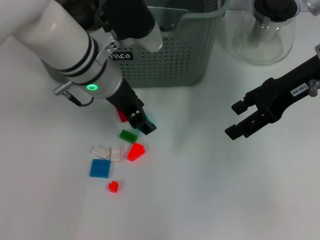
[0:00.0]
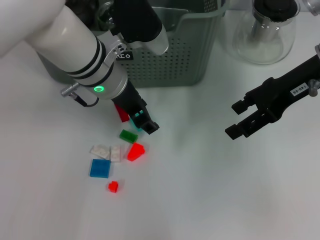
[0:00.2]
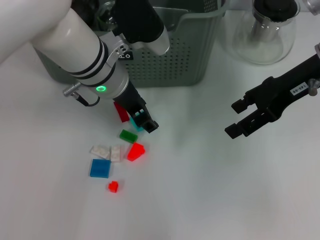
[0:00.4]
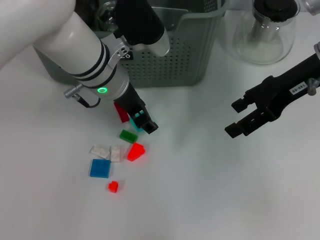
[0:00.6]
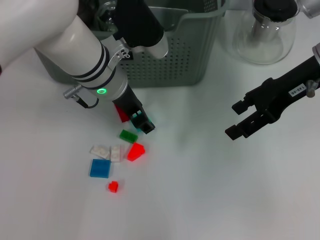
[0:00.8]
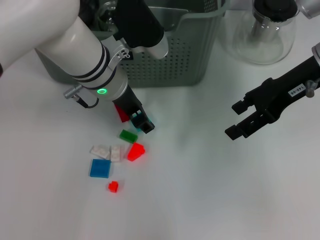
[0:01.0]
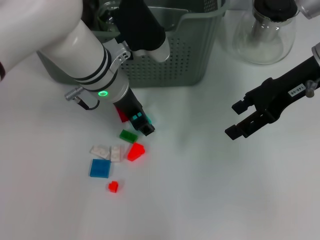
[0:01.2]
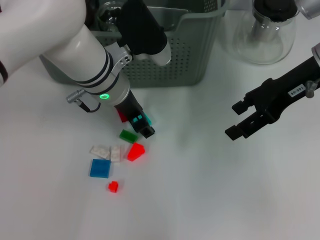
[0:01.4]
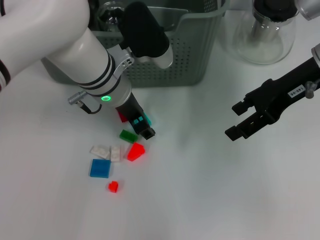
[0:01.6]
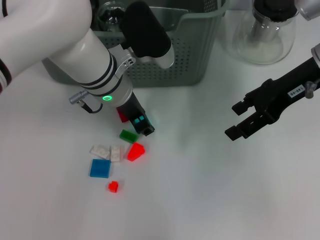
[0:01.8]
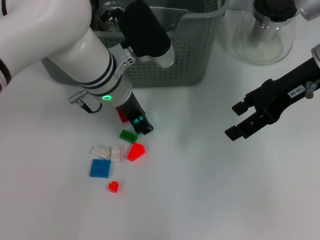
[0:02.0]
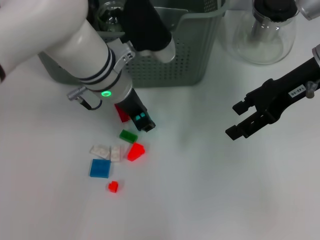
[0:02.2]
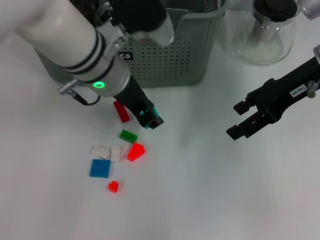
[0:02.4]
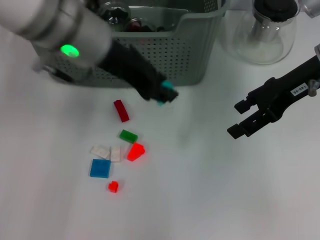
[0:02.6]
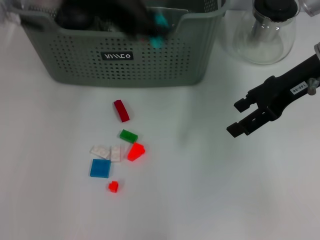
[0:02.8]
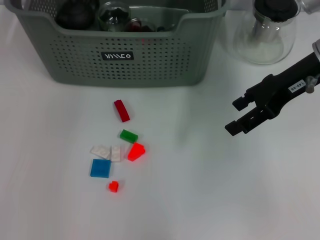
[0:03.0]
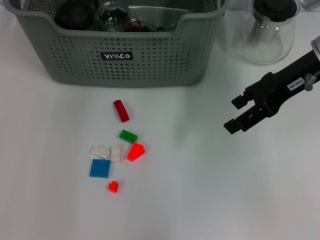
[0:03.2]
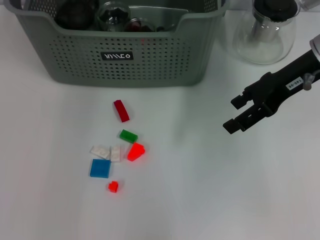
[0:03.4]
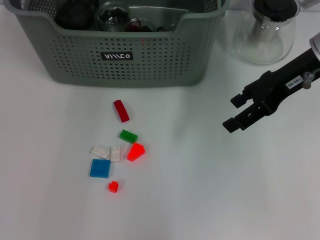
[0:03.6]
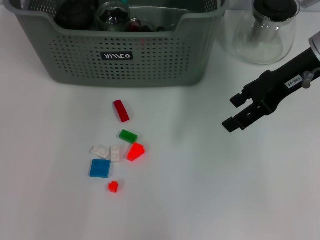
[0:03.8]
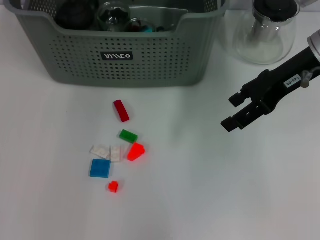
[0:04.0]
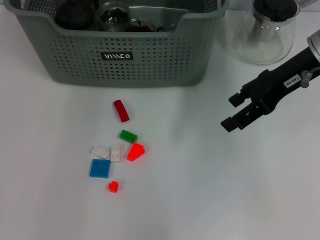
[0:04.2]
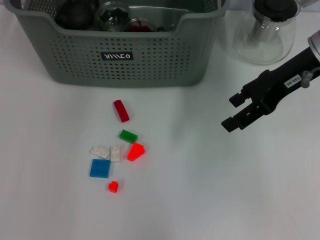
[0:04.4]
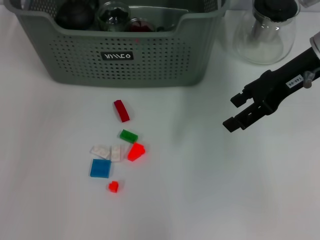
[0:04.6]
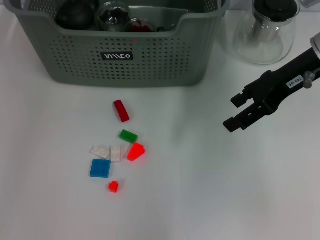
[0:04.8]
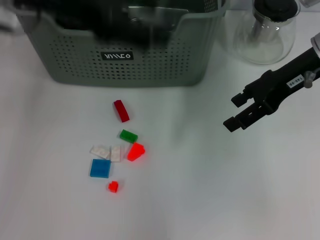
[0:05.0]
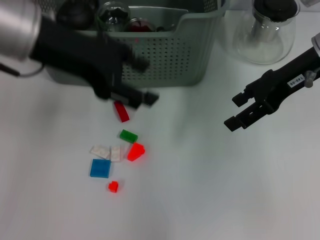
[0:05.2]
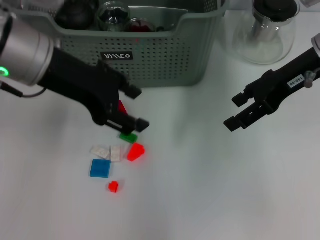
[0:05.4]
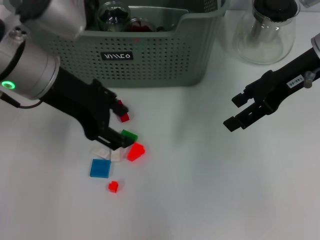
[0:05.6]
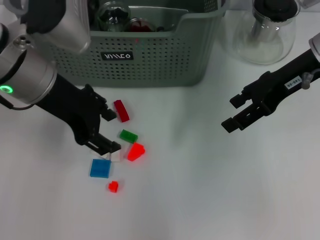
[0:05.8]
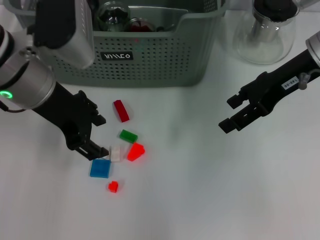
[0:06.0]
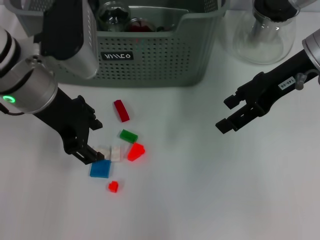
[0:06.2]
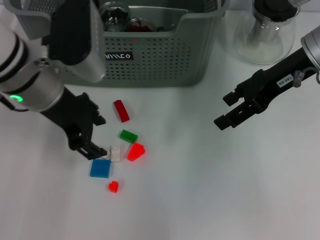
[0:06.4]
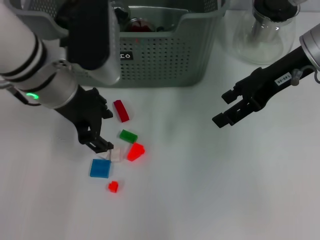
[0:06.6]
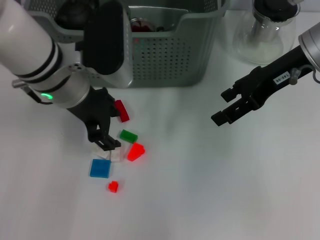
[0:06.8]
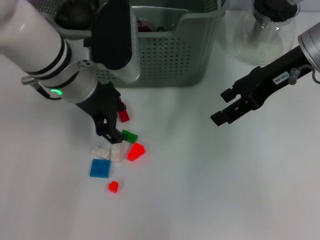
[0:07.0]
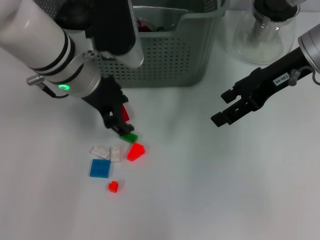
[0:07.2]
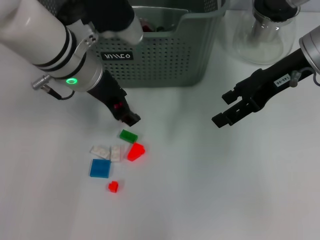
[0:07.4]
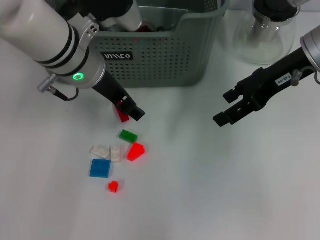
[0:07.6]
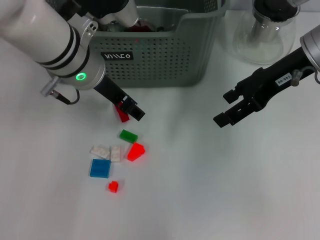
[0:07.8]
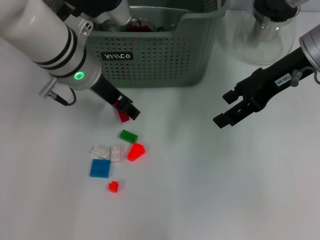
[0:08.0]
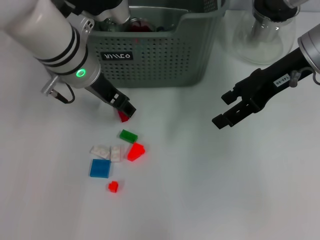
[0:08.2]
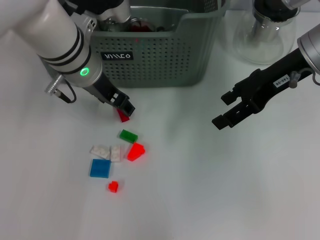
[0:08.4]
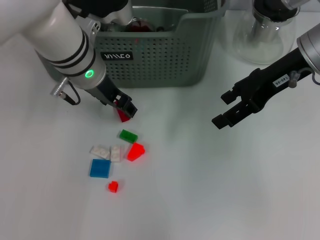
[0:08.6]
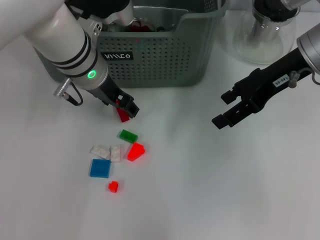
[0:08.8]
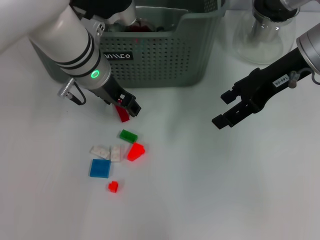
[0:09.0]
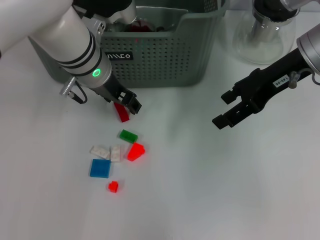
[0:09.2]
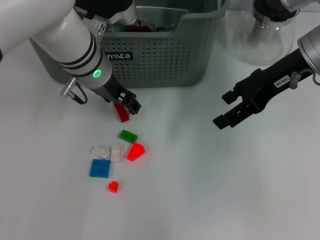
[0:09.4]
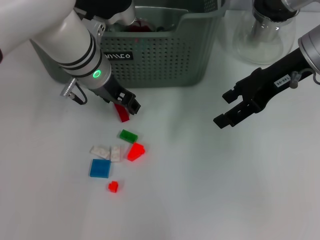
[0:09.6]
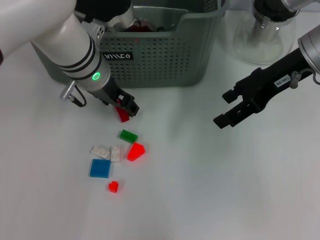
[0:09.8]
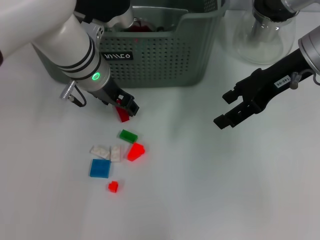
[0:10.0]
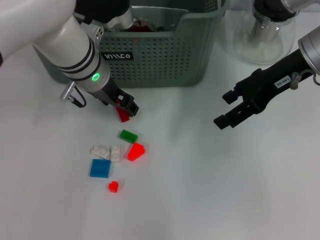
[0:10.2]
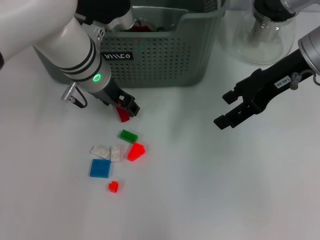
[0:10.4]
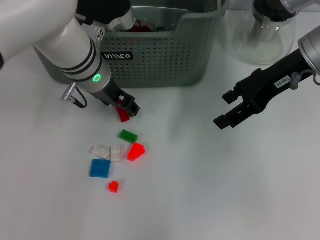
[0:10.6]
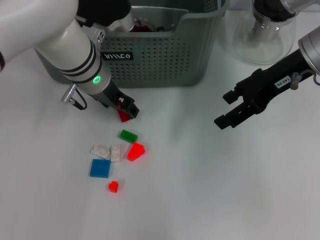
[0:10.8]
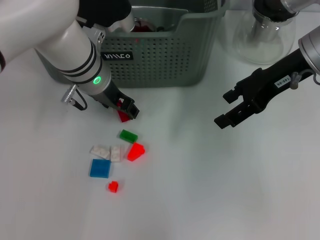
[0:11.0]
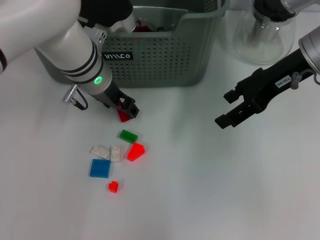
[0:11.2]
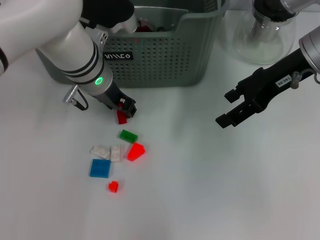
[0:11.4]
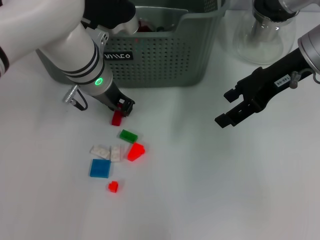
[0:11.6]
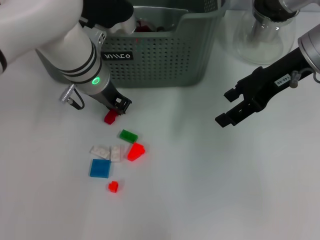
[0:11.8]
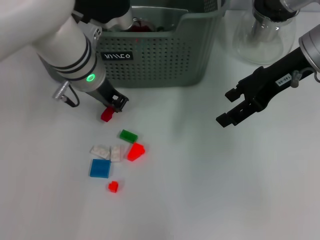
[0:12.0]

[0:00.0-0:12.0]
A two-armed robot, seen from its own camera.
Task of the whole recording: pick up the teacup on the table and place it into the storage bin, pick up the block on the table and place it into the storage bin.
Step, 0:00.0 to 0:02.0: Grasp the light blue block with left gripper.
Step, 0:02.2 to 0:04.0: Place the light blue block in the storage box with left gripper.
Step, 0:04.2 to 0:11.6: Grasp the red block with left gripper.
0:00.0 to 0:01.6: The grippers make only small movements.
0:01.6 to 0:03.0: The left gripper is displaced upward and to the left by roughly 20 cm.
0:04.4 to 0:06.0: The left gripper moves backward and downward, roughly 15 cm.
0:06.0 to 0:07.6: The left gripper is displaced to the right by about 5 cm.
0:09.0 to 0:10.4: Neither gripper changes place.
0:10.4 to 0:12.0: The left gripper closes its fingers.

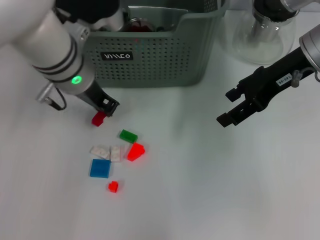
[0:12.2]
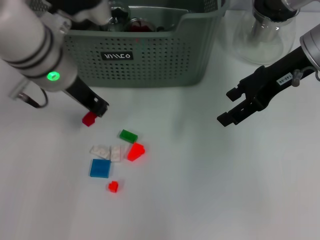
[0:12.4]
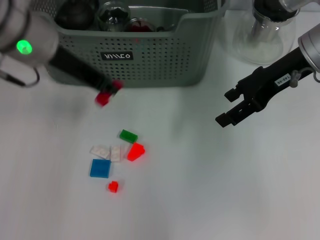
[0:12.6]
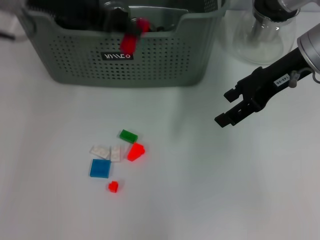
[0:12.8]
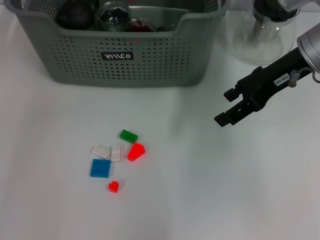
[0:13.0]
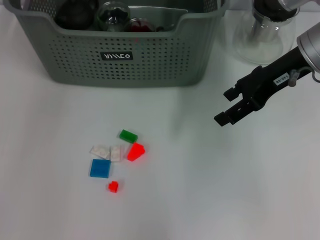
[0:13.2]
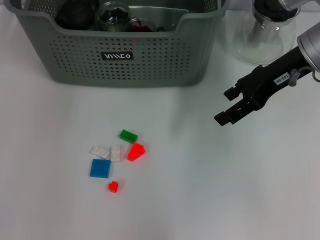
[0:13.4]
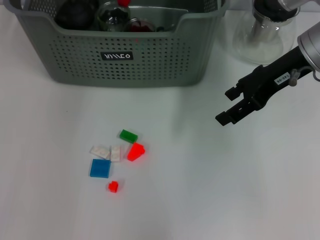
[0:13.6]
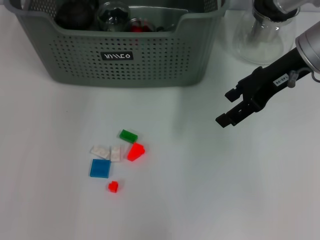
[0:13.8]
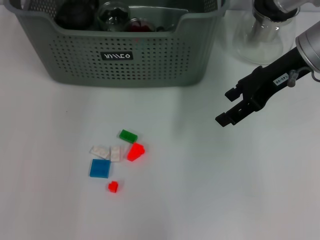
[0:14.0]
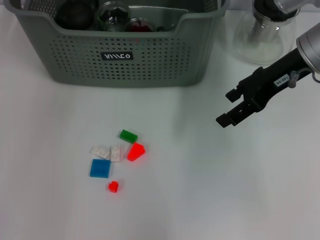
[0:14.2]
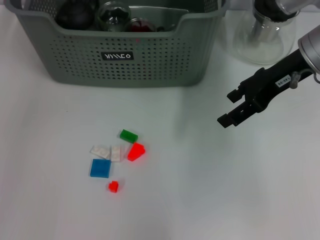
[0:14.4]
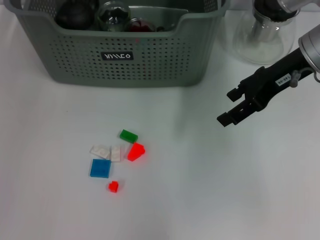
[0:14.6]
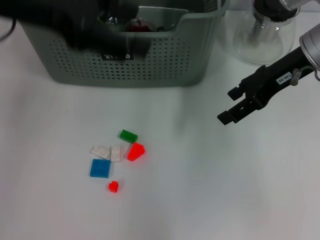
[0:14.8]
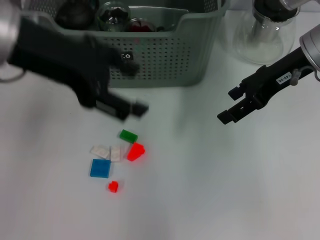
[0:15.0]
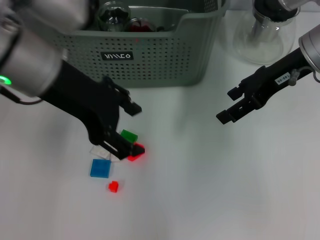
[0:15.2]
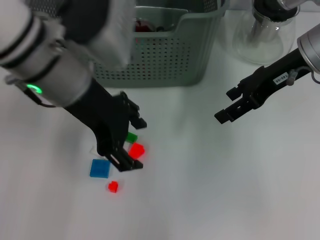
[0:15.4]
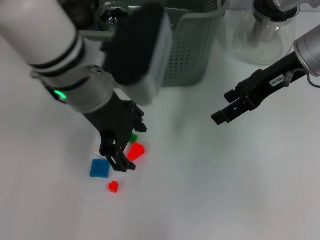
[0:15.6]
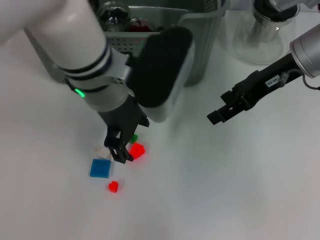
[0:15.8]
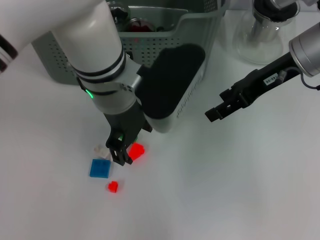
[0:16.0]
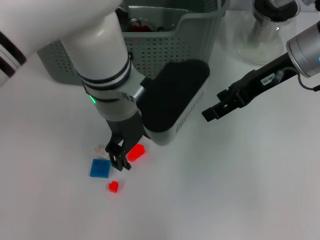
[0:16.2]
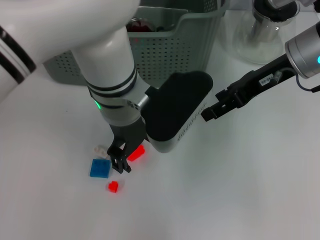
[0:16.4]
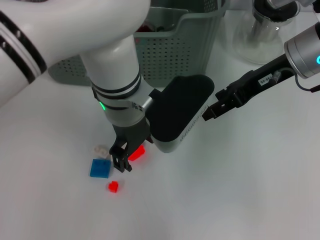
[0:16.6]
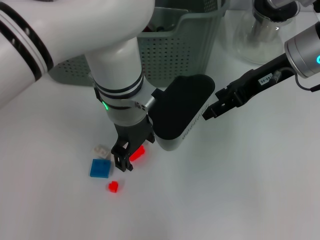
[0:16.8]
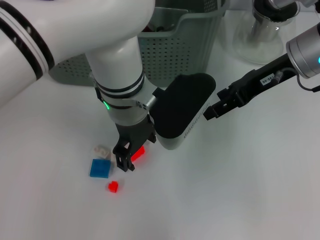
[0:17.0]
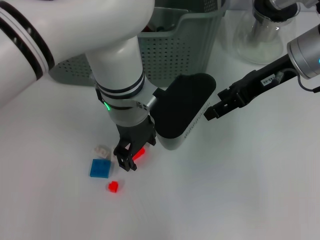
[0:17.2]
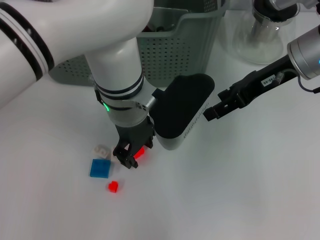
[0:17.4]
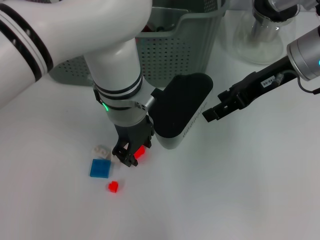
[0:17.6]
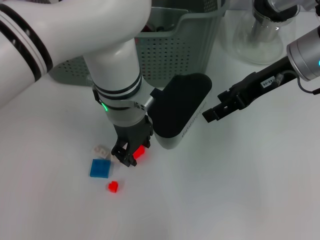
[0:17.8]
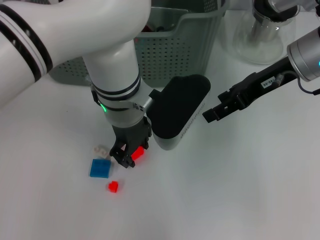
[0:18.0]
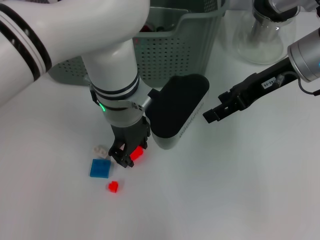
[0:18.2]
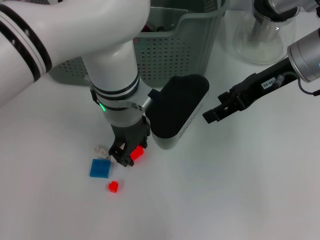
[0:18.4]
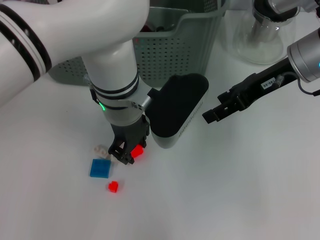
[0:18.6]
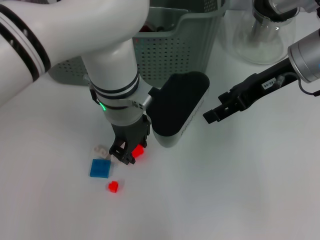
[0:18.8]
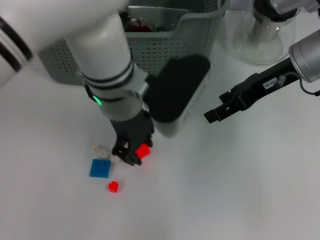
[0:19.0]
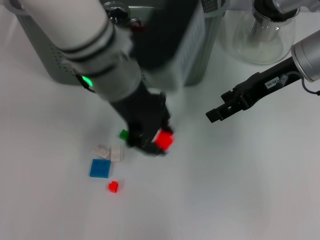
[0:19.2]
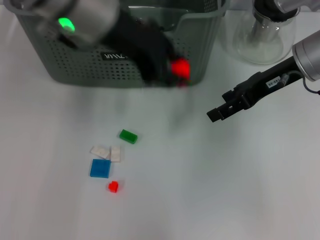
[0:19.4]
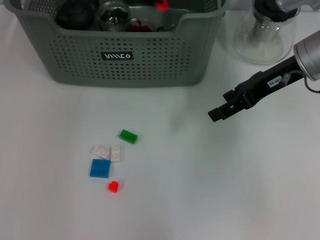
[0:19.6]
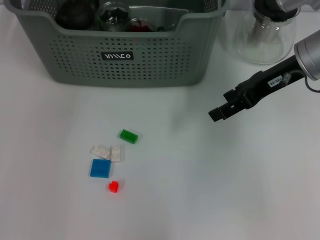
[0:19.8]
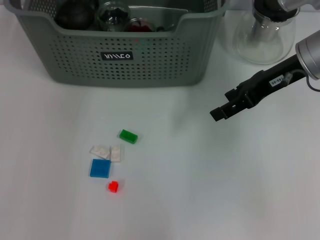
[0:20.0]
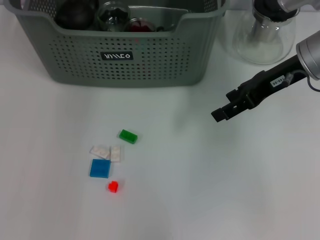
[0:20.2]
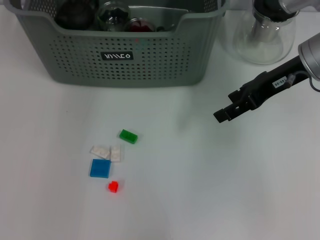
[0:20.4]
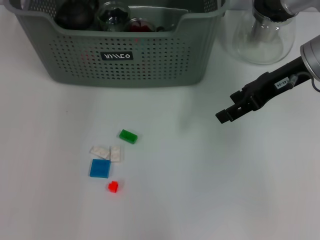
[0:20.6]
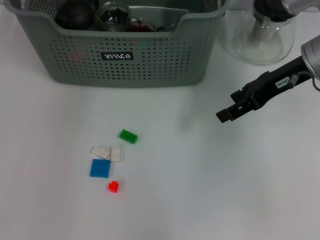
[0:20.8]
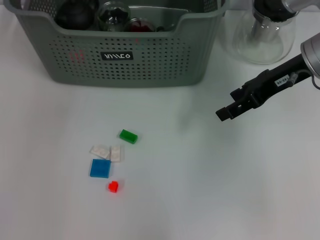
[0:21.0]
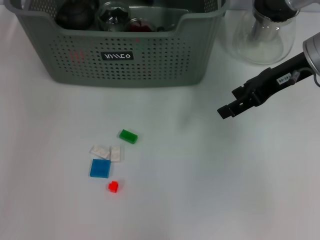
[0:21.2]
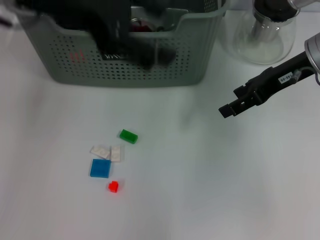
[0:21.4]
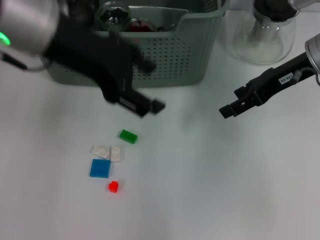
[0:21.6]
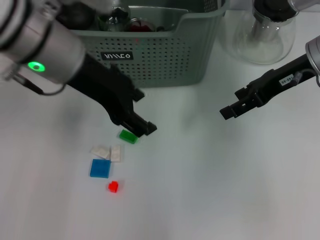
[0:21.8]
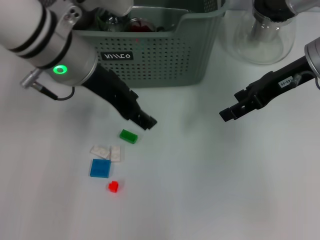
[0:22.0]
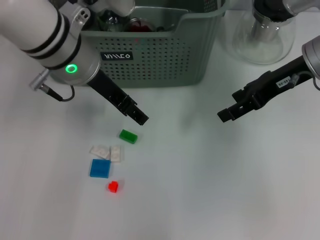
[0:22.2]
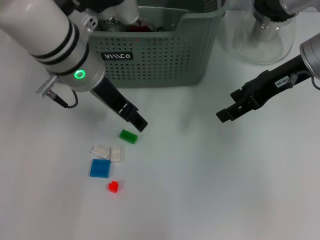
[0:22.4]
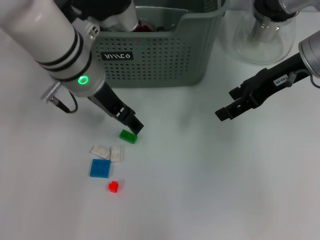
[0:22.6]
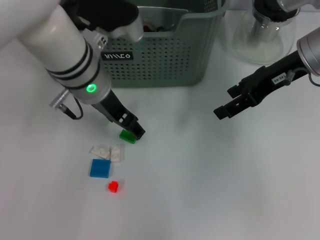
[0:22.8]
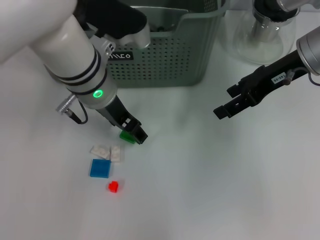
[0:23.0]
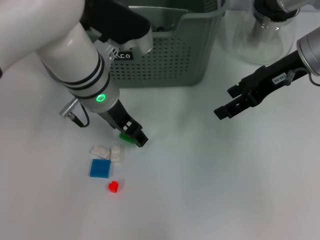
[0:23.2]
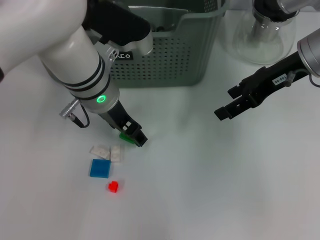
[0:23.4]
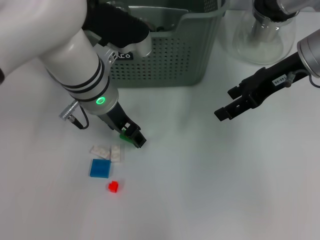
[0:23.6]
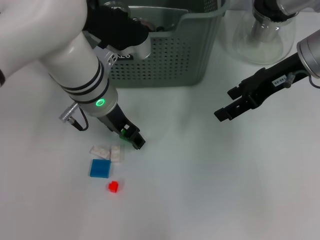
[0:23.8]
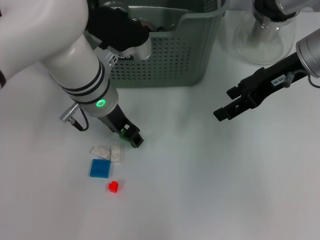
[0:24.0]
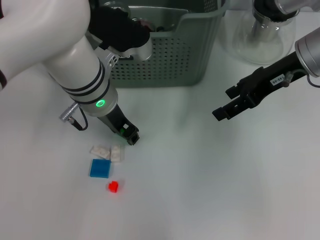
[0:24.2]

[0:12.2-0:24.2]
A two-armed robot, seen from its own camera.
Task of the whole recording: pick up the teacup on the table and place it into the storage bin, pick up the block on the table and place it into the storage bin.
Step, 0:12.2 to 0:13.8: Place the red block in the storage box with left gripper.
Step, 0:14.0 to 0:18.0: Grasp the orange block with left gripper.
Step, 0:18.2 to 0:20.4: Place the orange block in the storage box with left gripper.
Step, 0:20.6 to 0:24.2: Grasp the green block with left gripper.
0:12.2 to 0:13.8: The left gripper goes some 15 cm forward and upward.
0:13.8 to 0:15.2: The left gripper shifts approximately 15 cm backward, and opens.
0:15.2 to 0:16.6: The left gripper moves to the right and downward, some 15 cm.
0:16.6 to 0:18.2: The left gripper closes.
0:18.2 to 0:19.8: The left gripper goes roughly 20 cm upward, to the left and forward.
0:21.2 to 0:22.6: The left gripper heads downward and to the right, covering roughly 15 cm.
0:22.6 to 0:24.2: The grippers make only small movements.
